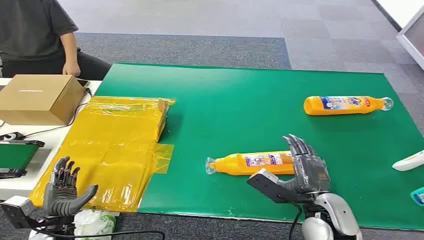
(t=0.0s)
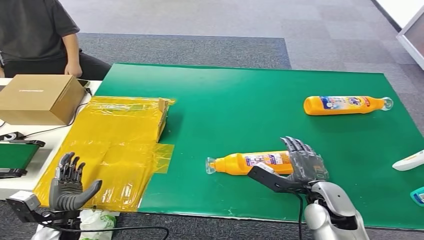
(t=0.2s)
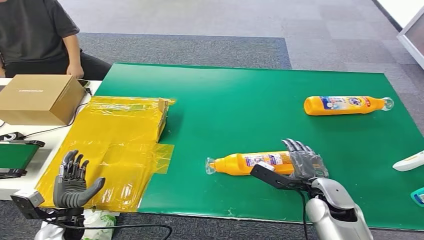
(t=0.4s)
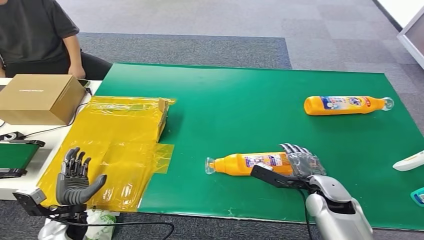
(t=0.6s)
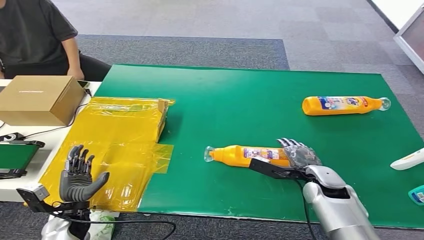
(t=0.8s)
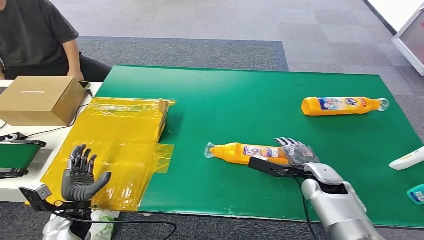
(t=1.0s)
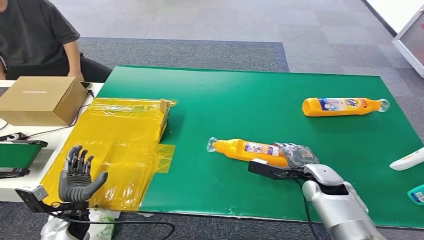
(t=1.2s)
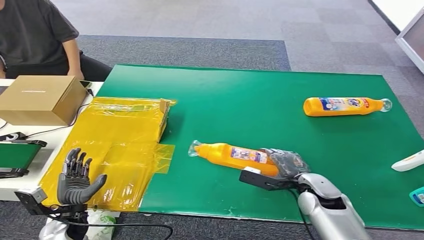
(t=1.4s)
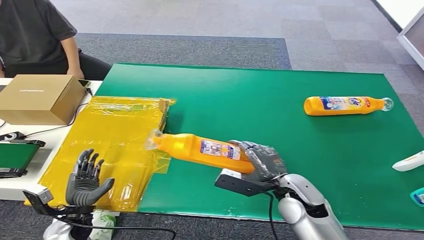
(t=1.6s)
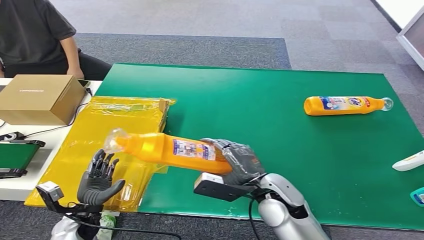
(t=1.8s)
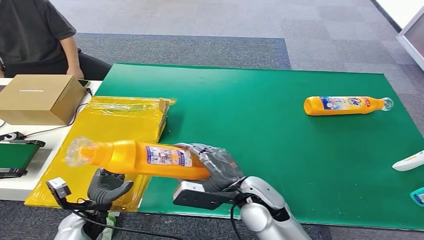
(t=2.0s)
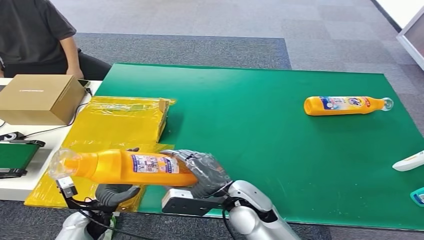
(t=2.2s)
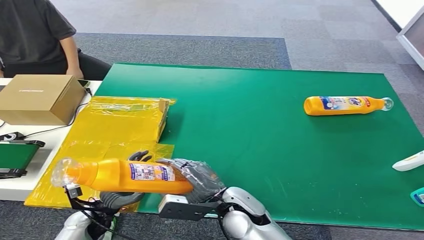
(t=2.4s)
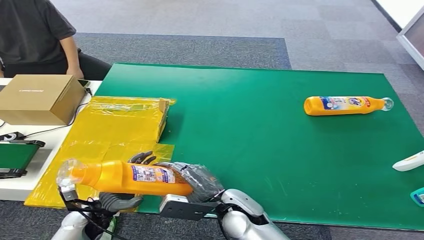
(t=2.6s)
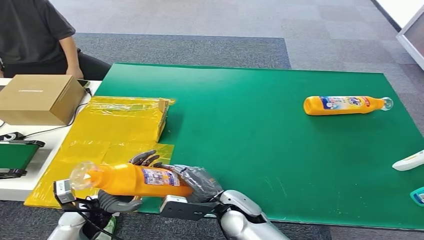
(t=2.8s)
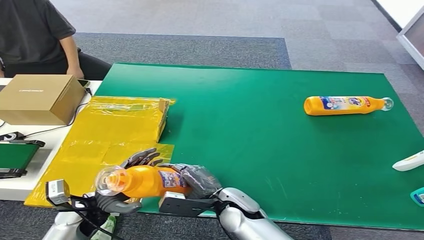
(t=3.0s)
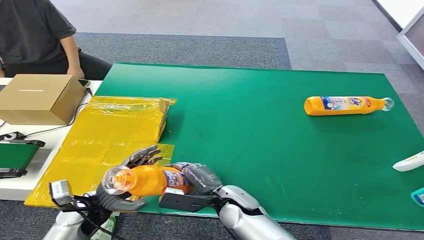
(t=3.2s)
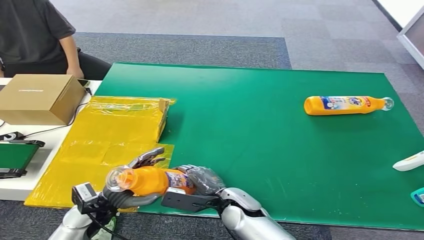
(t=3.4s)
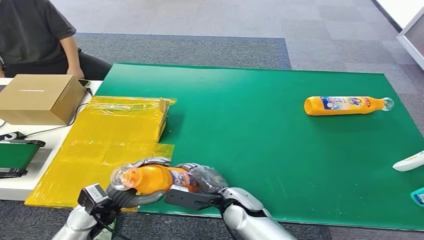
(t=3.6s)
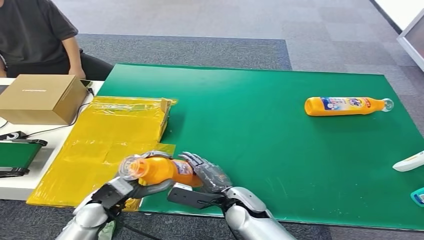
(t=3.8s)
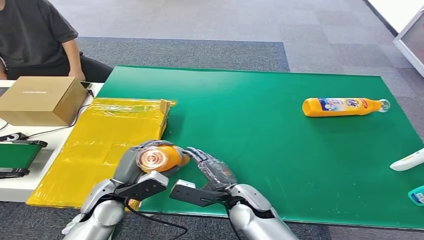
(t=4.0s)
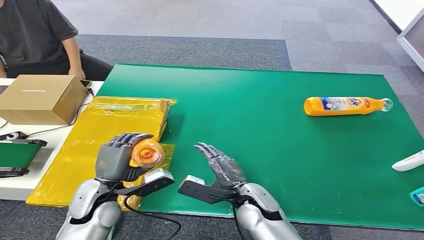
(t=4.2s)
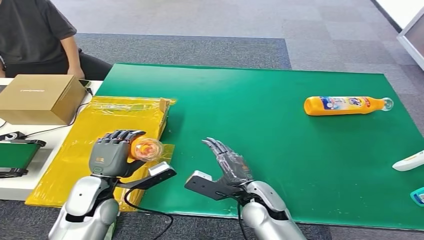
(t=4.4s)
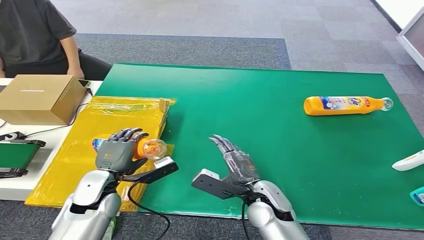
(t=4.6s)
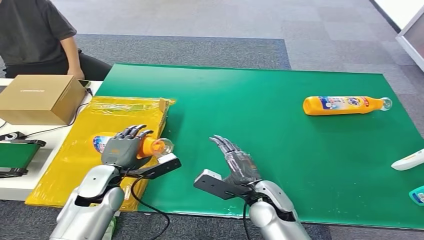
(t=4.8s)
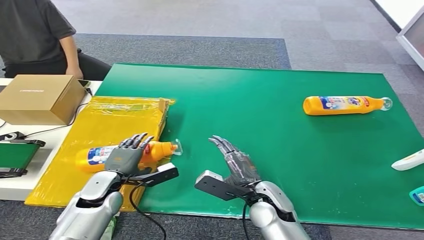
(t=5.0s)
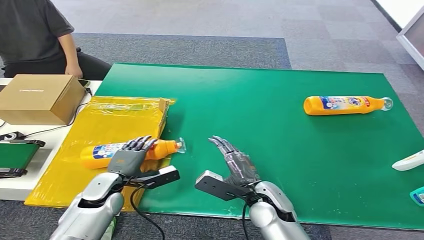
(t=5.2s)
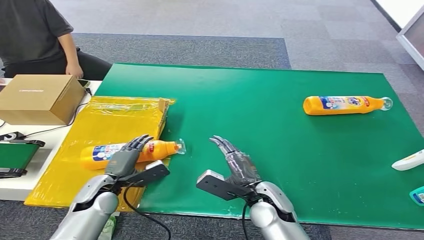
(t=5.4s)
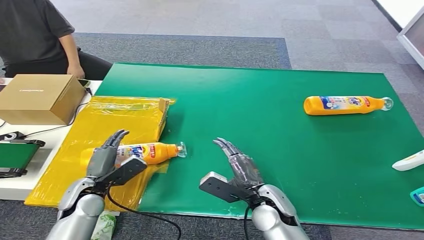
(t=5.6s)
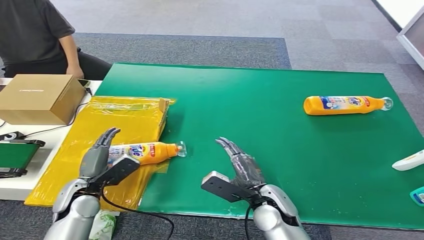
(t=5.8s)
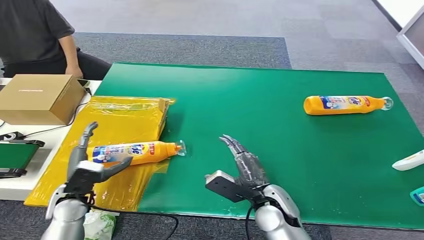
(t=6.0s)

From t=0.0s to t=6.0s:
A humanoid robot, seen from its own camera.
Step, from t=0.0s to t=1.6s: Pick up the bottle from the table.
Step, from t=1.8s to t=5.8s: Turn the bottle to the front side.
From t=1.6s to t=3.0s: The right hand travels to the left and downward by some 15 cm; the left hand moves to the right and upward, about 10 cm.
From t=3.0s to t=4.4s: The left hand is displaced upward by roughly 5 cm. The right hand changes place by approximately 5 cm.
From t=4.4s to t=6.0s: The left hand heads to the left, covering approximately 5 cm.
